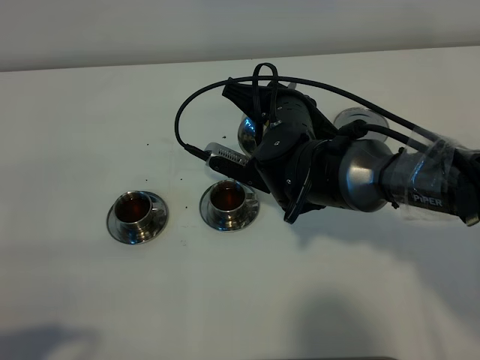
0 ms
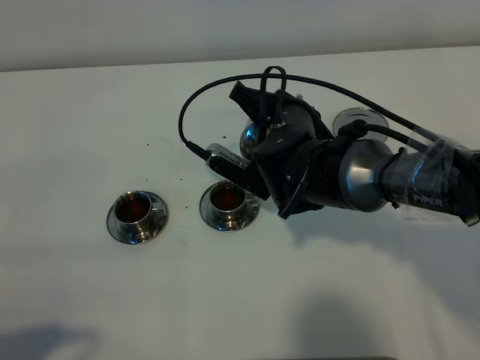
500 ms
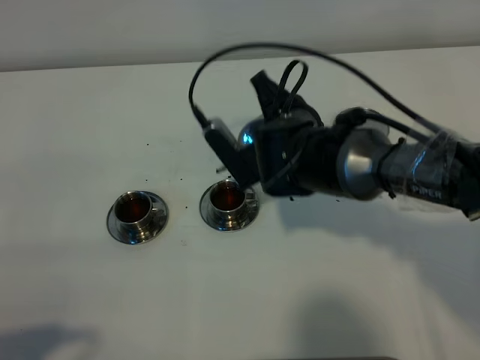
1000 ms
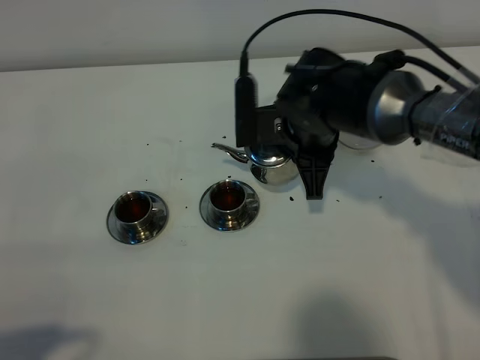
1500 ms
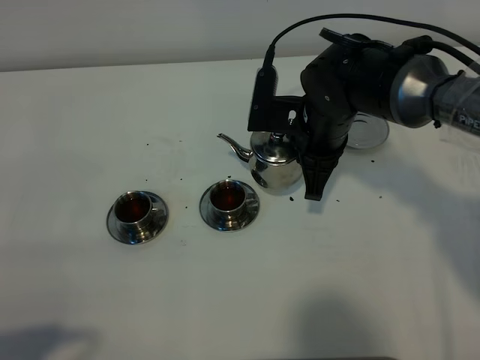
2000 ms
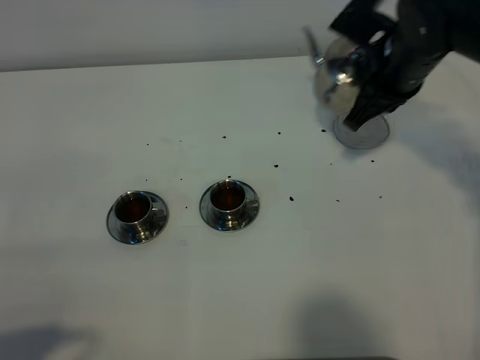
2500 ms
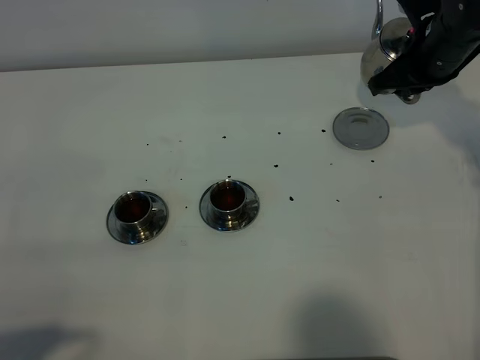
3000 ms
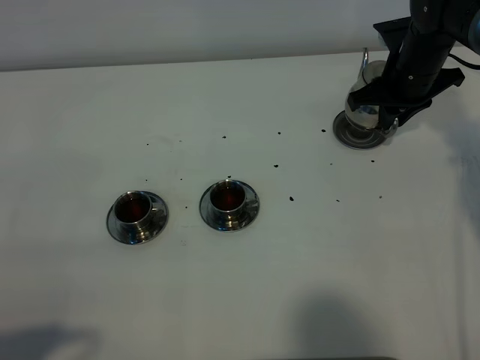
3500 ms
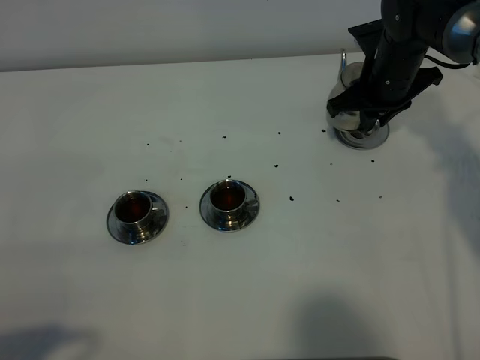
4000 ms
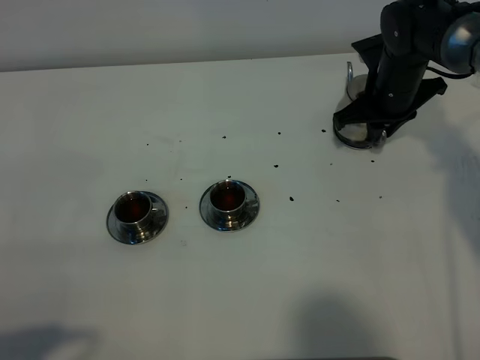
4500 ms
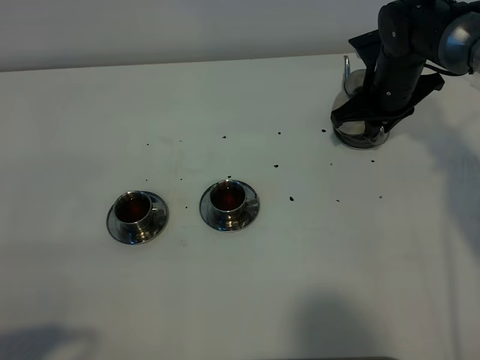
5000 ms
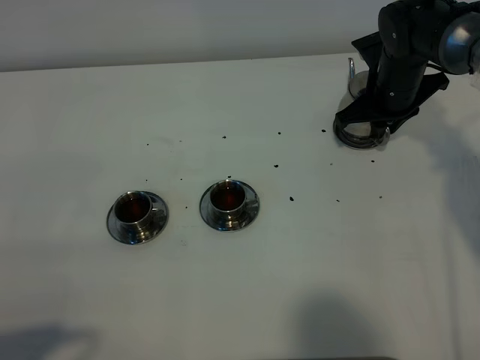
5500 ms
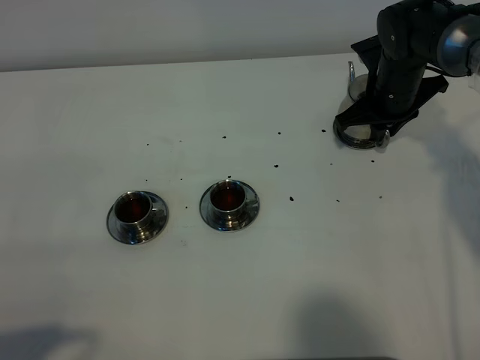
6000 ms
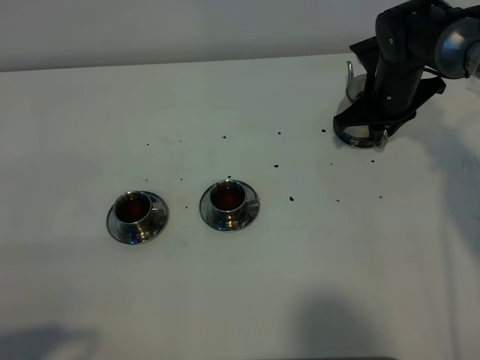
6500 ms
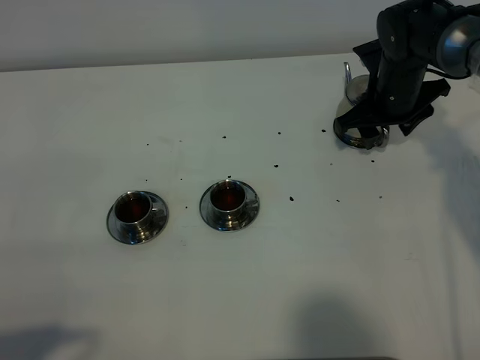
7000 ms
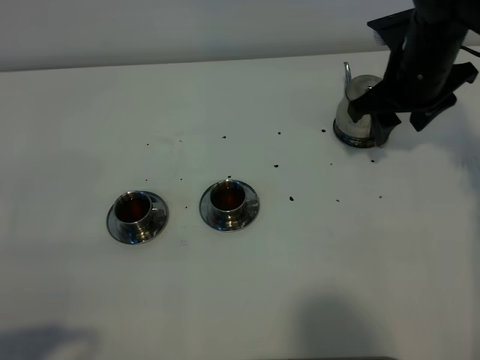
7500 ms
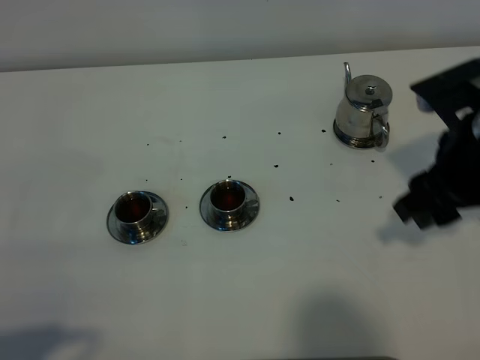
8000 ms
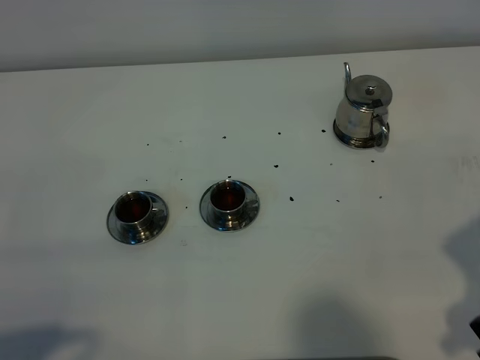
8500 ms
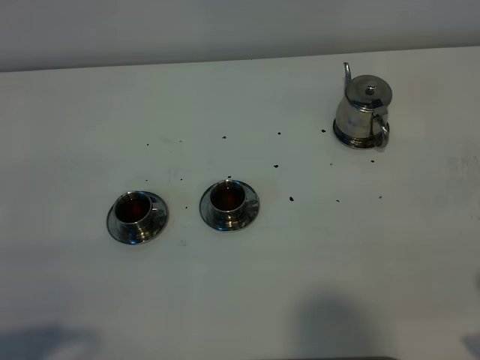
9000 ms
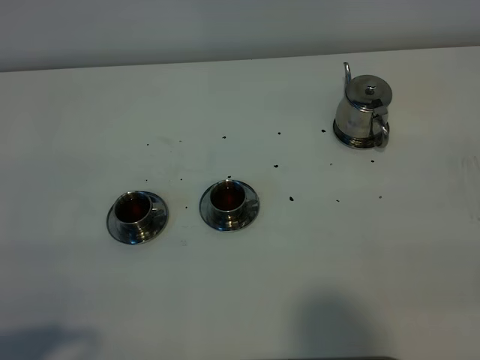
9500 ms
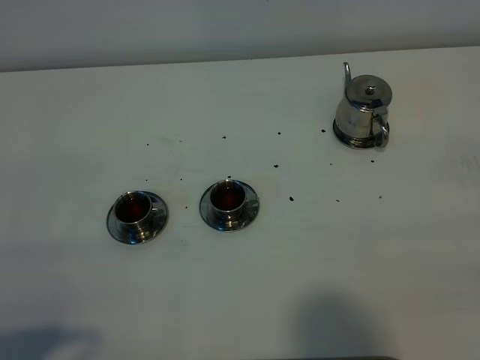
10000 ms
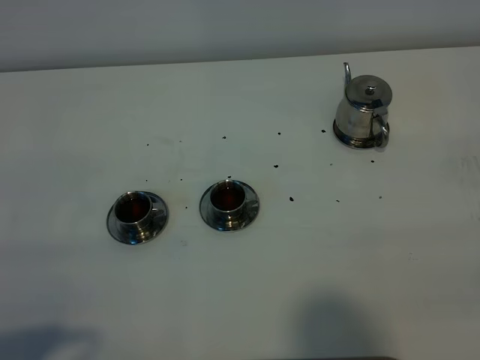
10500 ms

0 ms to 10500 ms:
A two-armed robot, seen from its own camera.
Task of the whole recording: grasp the stainless steel teapot and pour the tea into the two stainless steel teacups one by one, put the stainless steel teapot back in its original place.
0 ms to 2000 ms: The right gripper moves roughly 5 cm.
2000 ms to 4000 ms: The right gripper is displaced to the right and forward by about 15 cm.
4000 ms to 6500 ms: The grippers move only a little.
6500 ms to 8500 ms: The right gripper shifts about 35 cm backward, and opens up.
8500 ms to 10500 ms: The right gripper is displaced backward and to the right by approximately 15 cm.

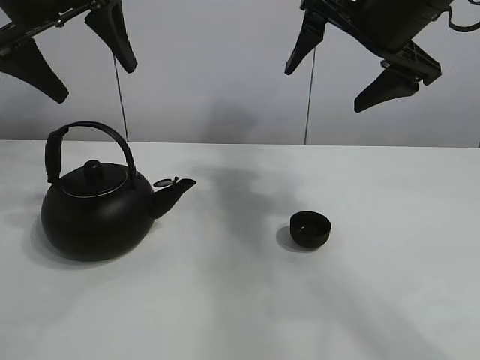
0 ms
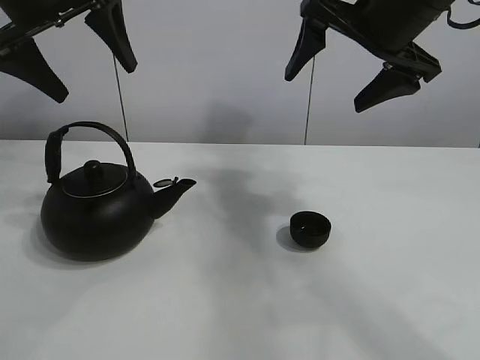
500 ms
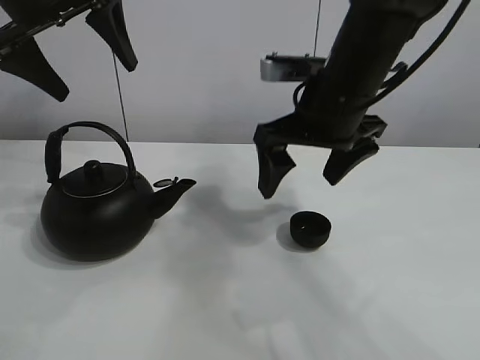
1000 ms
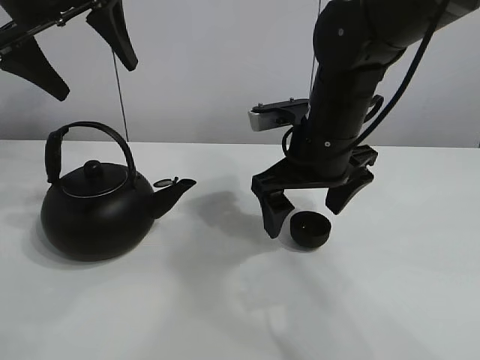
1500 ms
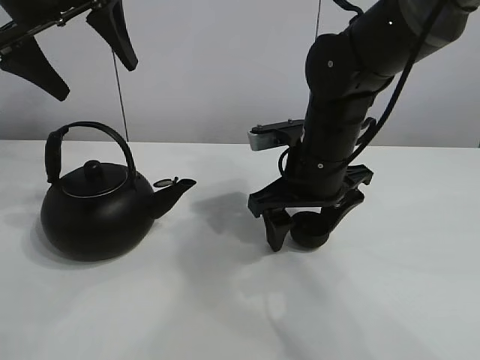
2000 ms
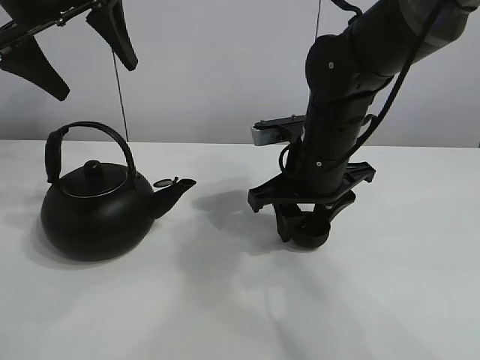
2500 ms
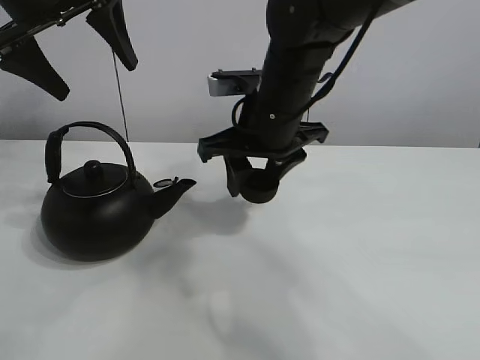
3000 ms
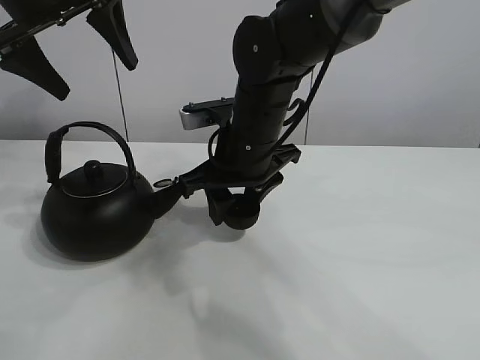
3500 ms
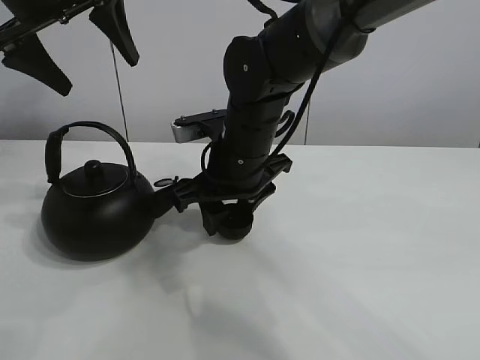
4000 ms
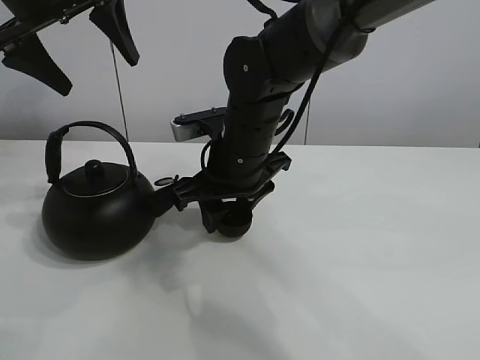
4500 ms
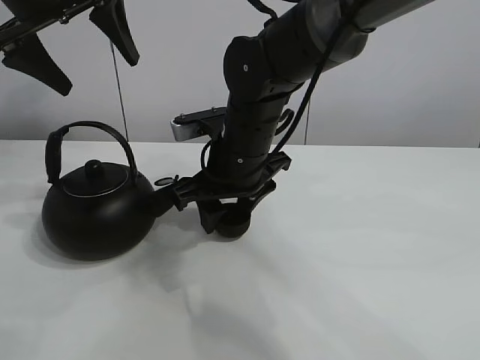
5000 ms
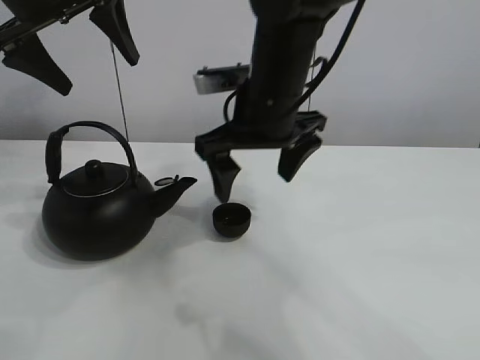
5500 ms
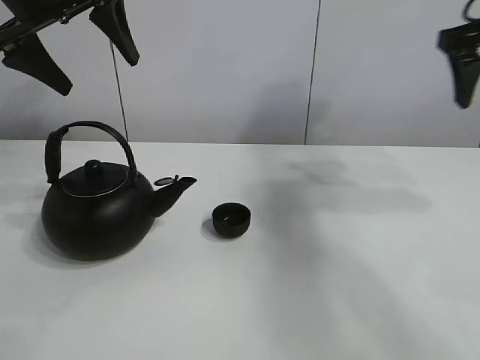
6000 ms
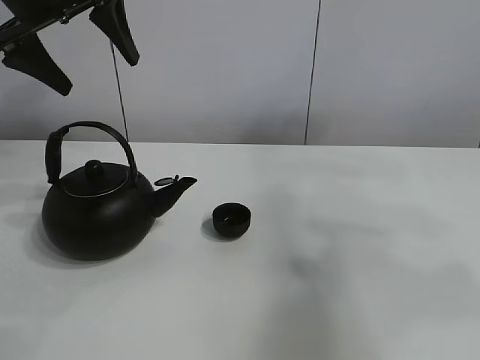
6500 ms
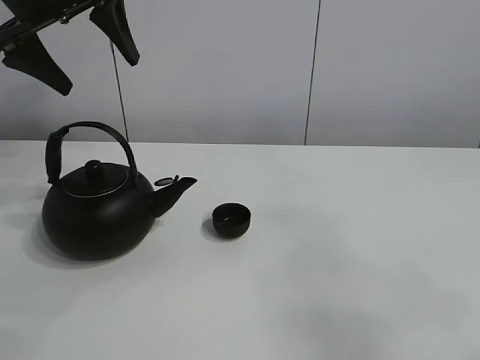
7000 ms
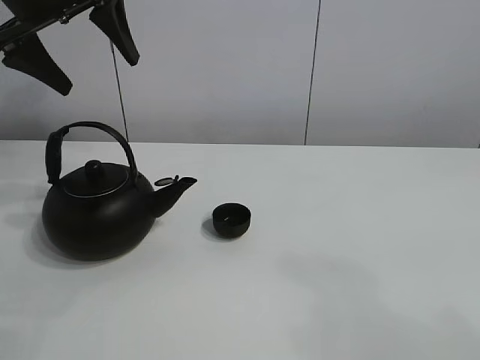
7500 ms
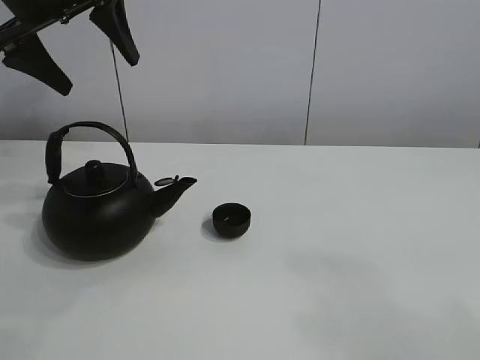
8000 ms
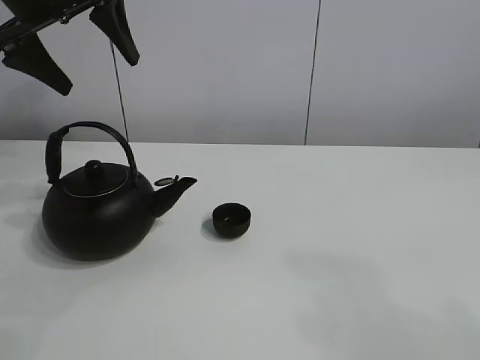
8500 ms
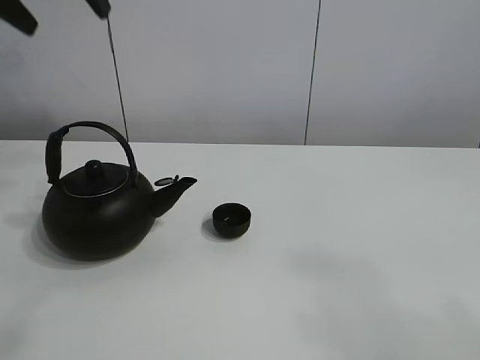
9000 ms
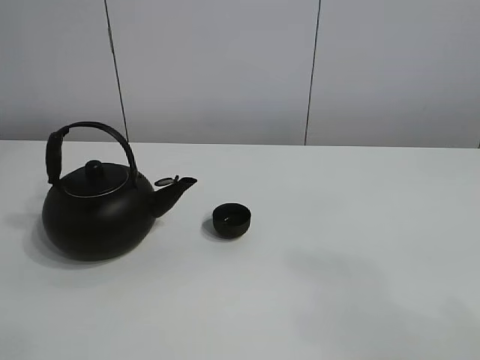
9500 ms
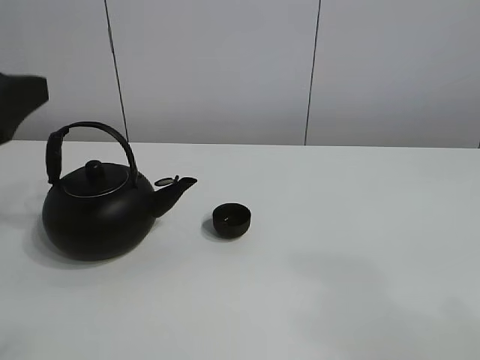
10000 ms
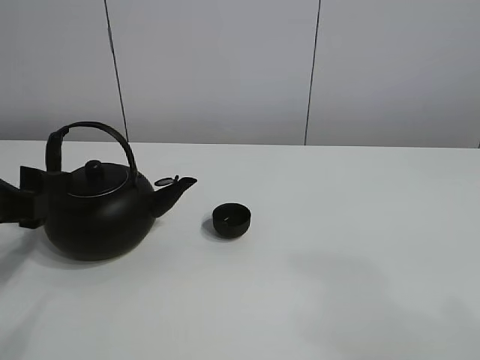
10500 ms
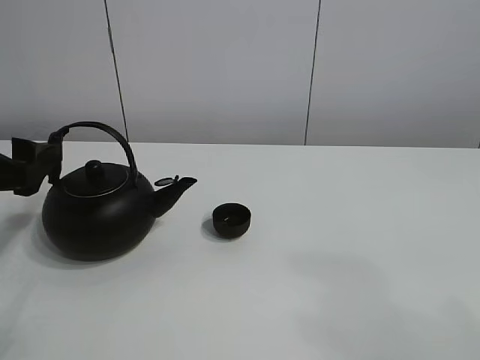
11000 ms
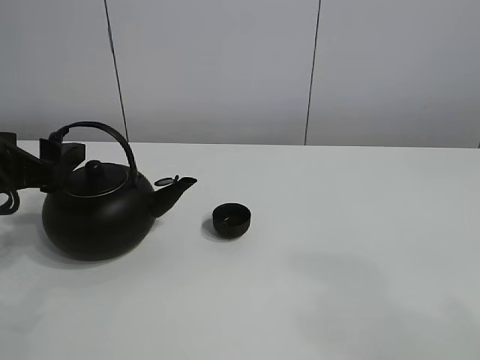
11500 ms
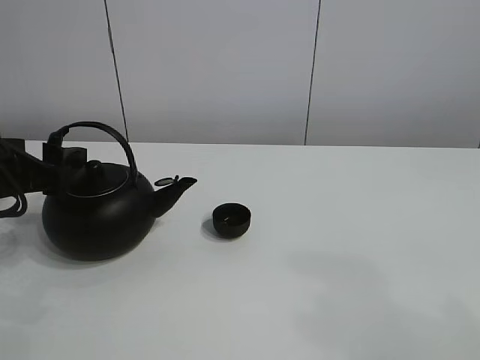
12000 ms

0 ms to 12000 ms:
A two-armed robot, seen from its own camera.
Task of the whole recording: pour tea into the teacup.
Step, 0 ms to 2500 ms: Pick up the teacup with the right gripper.
Step, 3000 ms to 5000 ms: Place the teacup in the center of view with the right gripper.
2000 ms to 4000 ms: The right gripper is displaced to the left by some 10 cm, and closes.
4000 ms to 6000 ms: The right gripper moves to the right and upward, some 35 cm, and opens up.
6000 ms to 8000 ms: The right gripper heads backward, covering some 40 cm.
8000 ms to 10000 ms: The left gripper goes some 20 cm backward and downward.
10000 ms to 12000 ms: The left gripper shifts about 10 cm downward and forward.

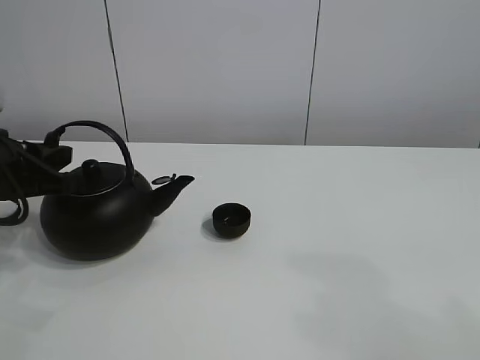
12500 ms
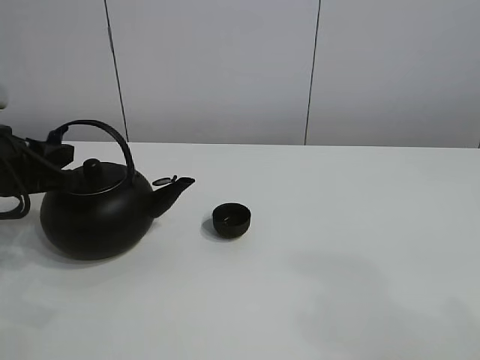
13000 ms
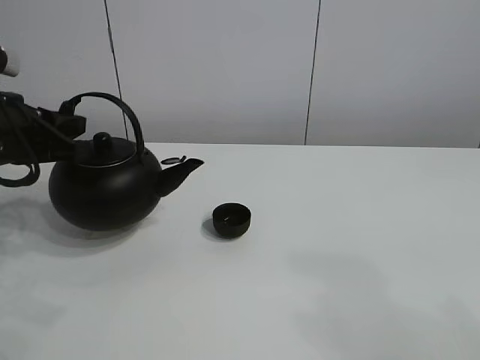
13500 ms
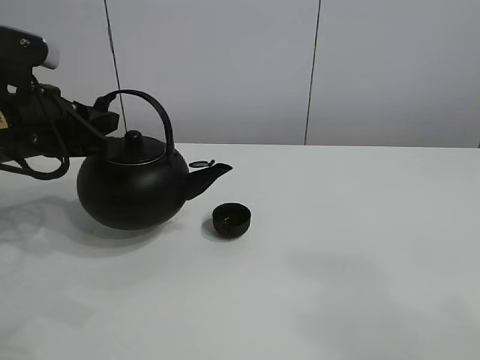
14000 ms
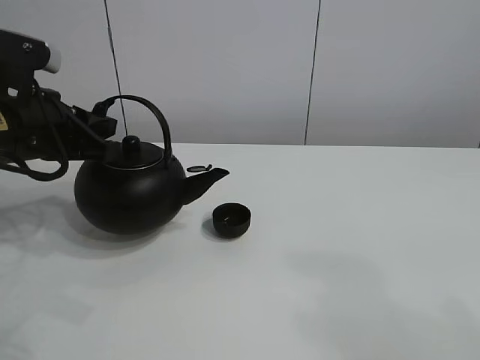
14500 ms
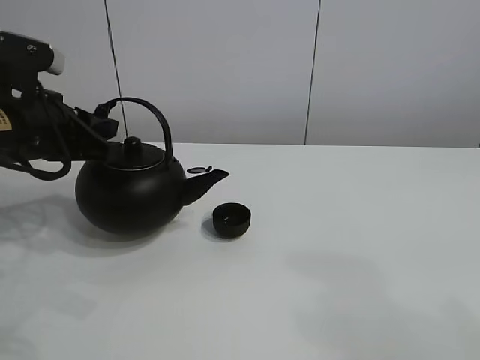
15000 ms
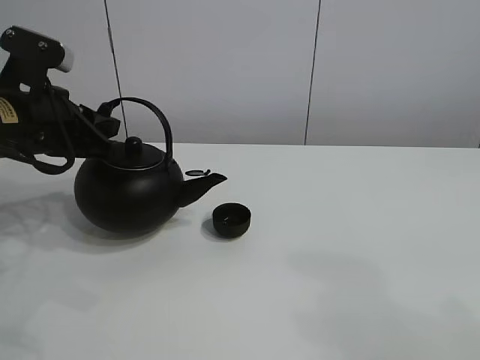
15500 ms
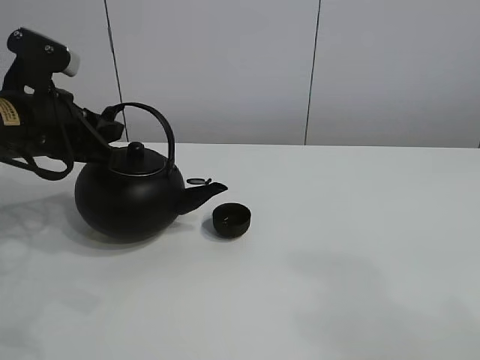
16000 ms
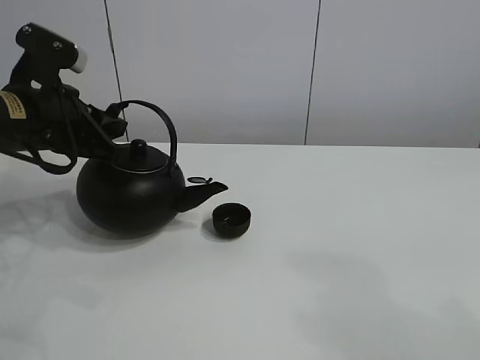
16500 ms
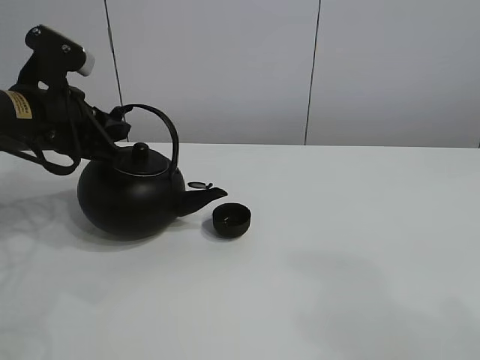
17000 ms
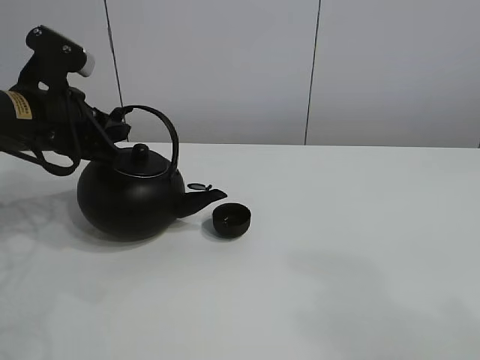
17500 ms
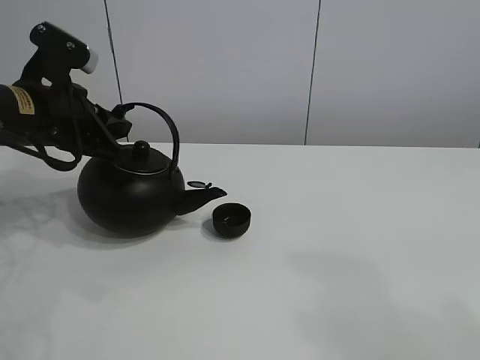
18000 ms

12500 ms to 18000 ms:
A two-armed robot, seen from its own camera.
Task of the whole recording: pour tea into the teacup.
12500 ms to 14500 ms: The left gripper shifts by approximately 5 cm.
14500 ms to 18000 ms: The grippers make only small movements.
